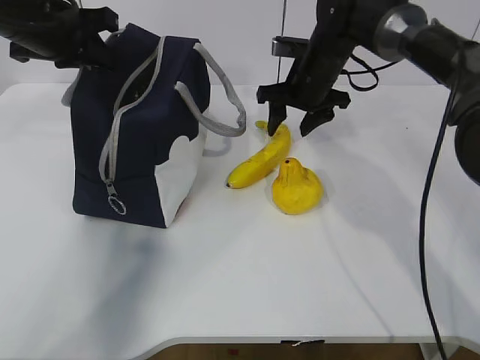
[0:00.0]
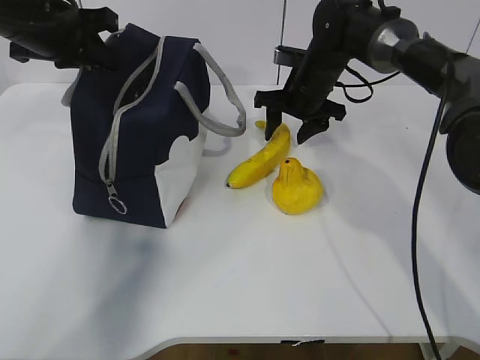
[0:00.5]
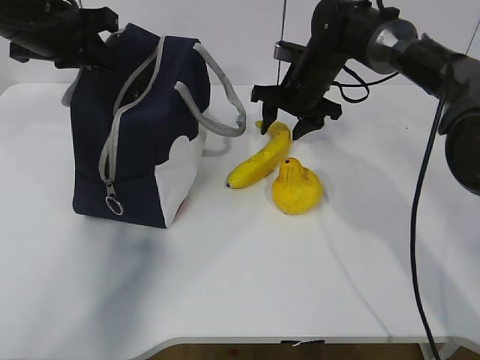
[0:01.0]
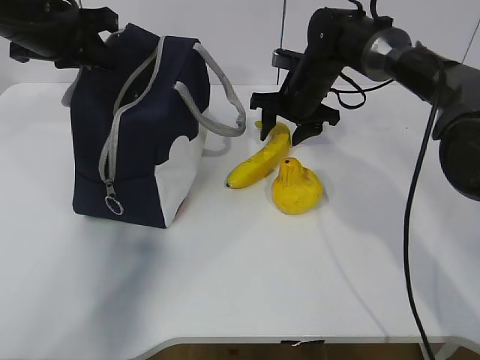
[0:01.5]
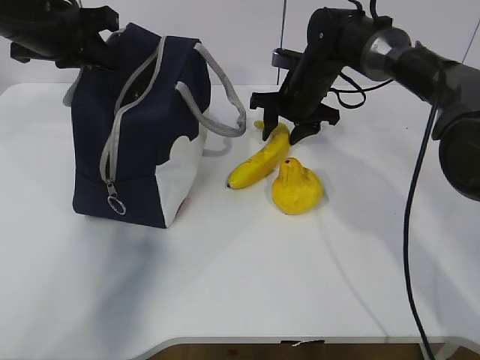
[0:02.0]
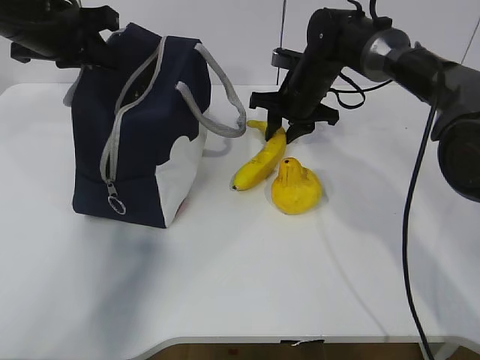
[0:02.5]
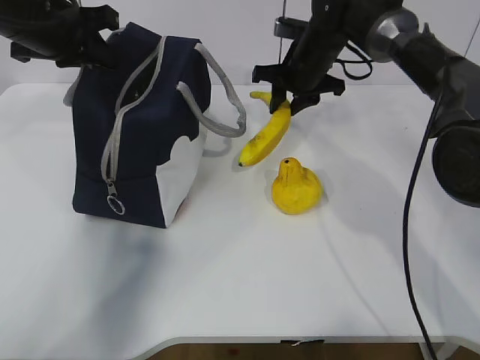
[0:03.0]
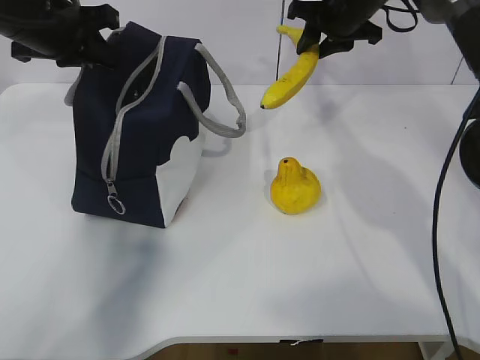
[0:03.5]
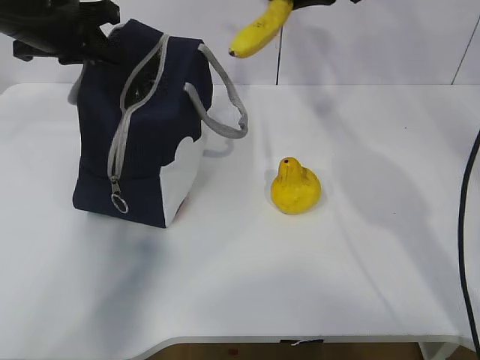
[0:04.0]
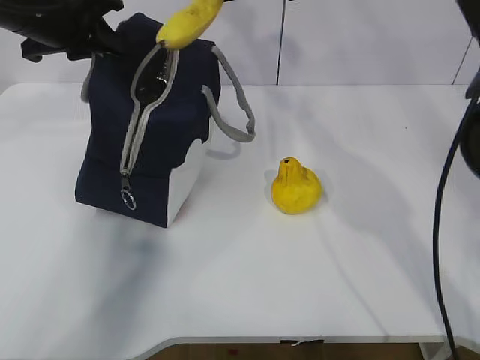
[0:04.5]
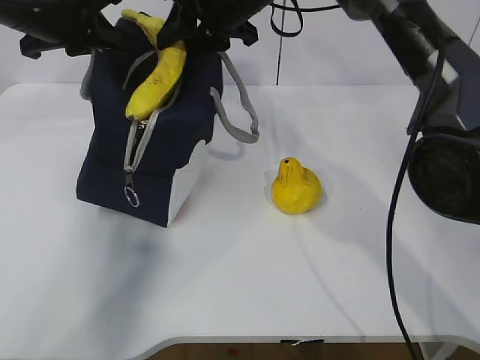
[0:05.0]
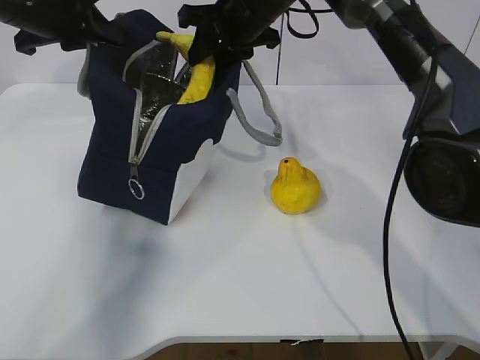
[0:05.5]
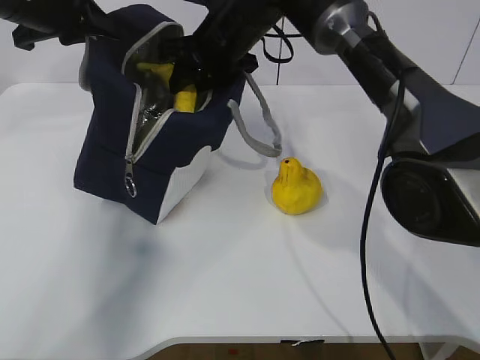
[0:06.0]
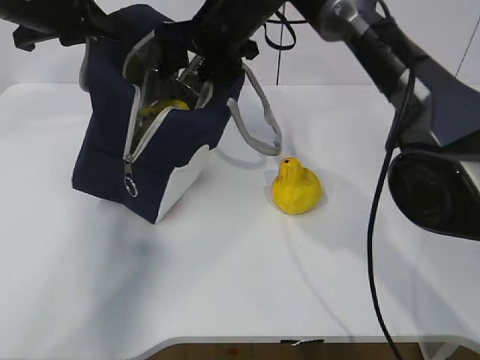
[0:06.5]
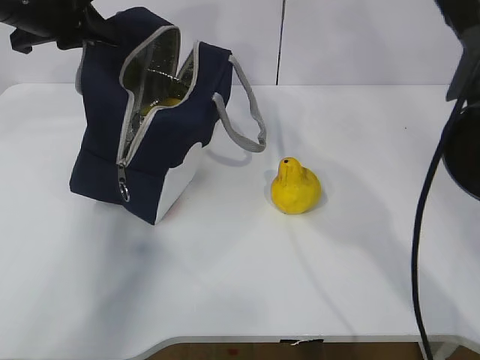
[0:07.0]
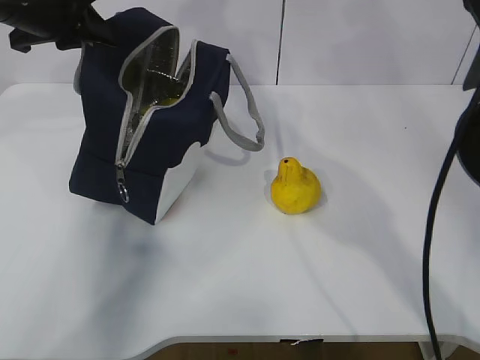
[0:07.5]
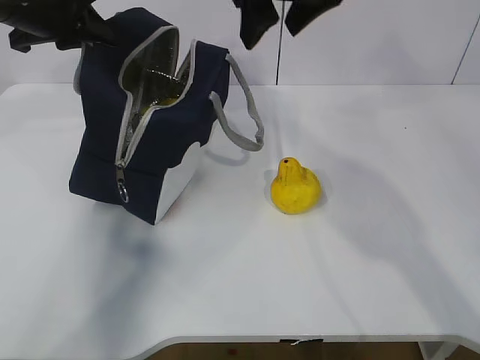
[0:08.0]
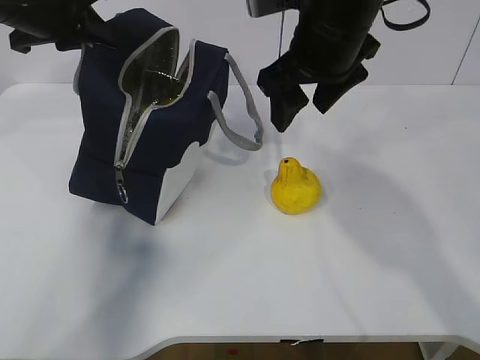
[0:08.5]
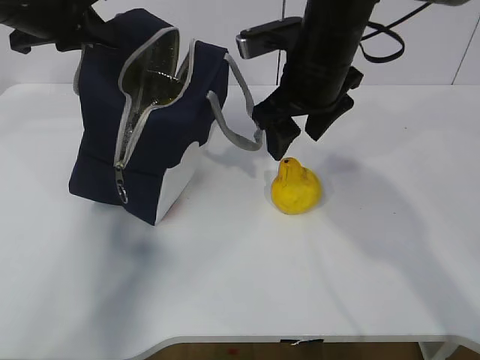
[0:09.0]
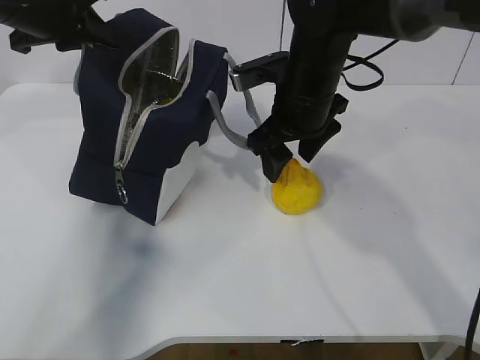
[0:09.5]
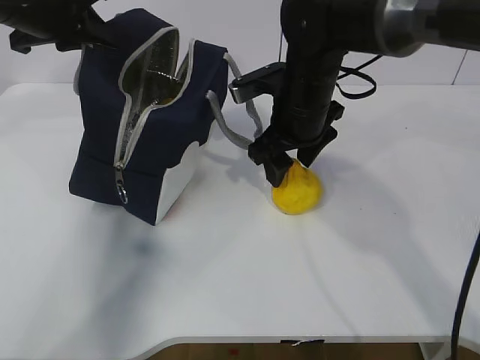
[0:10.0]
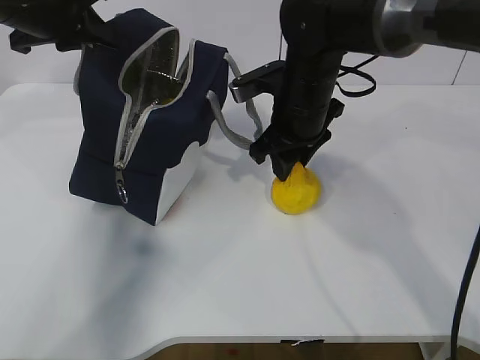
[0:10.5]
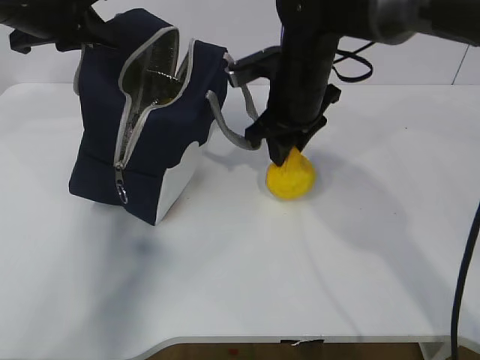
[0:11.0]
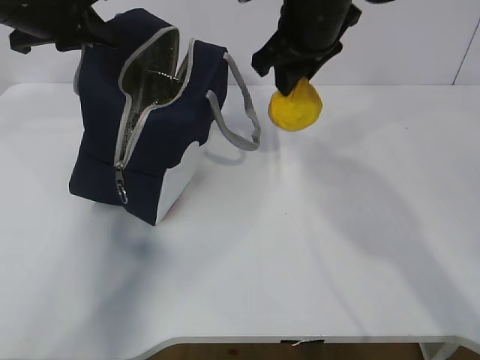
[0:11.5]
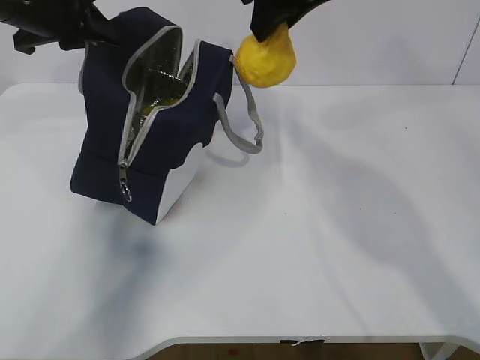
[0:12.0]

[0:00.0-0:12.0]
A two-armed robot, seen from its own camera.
Step, 0:01.5 to 0:04.5: Grab the pear with your right hand.
Step, 0:07.5 to 0:08.5: Grab the lunch bag with your right hand.
Step, 0:09.0 to 0:10.5: Move the lunch bag to the right.
0:00.0 to 0:02.0: The grippers stay close to where they were, moving slightly.
0:02.0 to 0:04.0: The right gripper shifts some 20 cm upward.
0:04.0 to 0:06.0: The right gripper is displaced to the left and downward by approximately 15 cm.
0:06.0 to 0:08.0: The right gripper shifts approximately 15 cm upward, backward and to the right, and opens up.
0:08.0 to 0:10.0: The right gripper shifts roughly 15 cm downward.
0:10.0 to 0:12.0: The right gripper travels upward by approximately 15 cm, and closes.

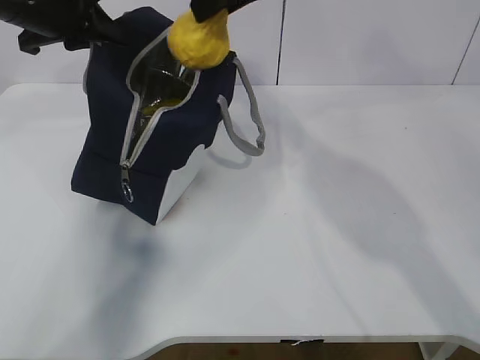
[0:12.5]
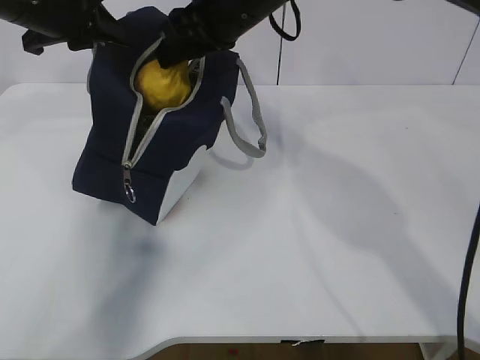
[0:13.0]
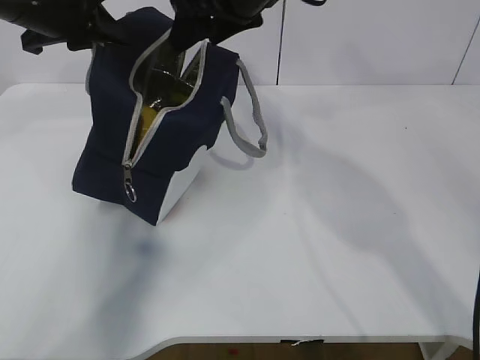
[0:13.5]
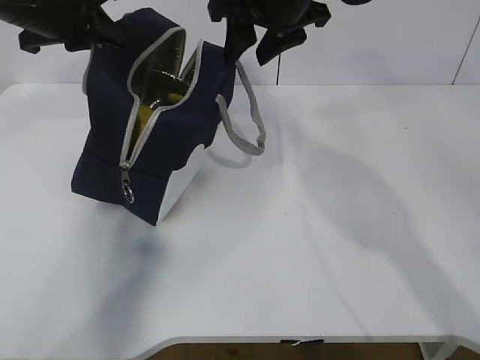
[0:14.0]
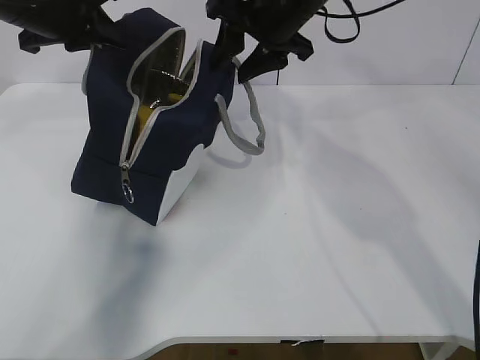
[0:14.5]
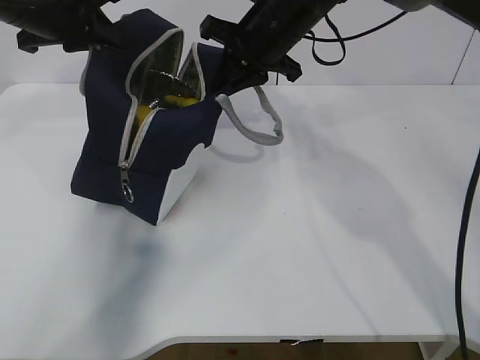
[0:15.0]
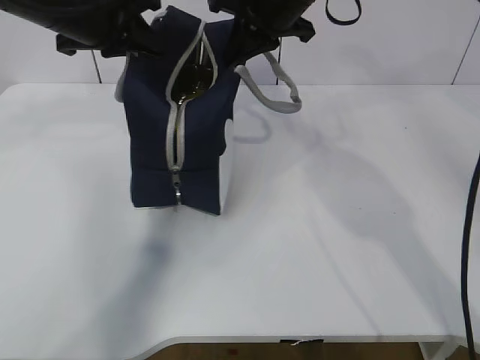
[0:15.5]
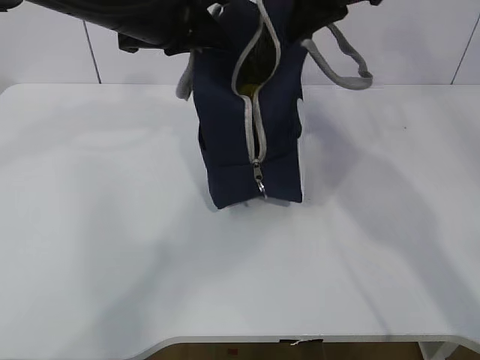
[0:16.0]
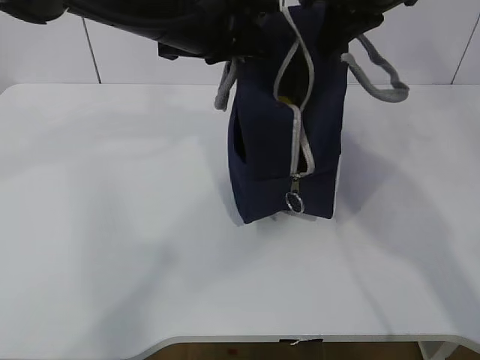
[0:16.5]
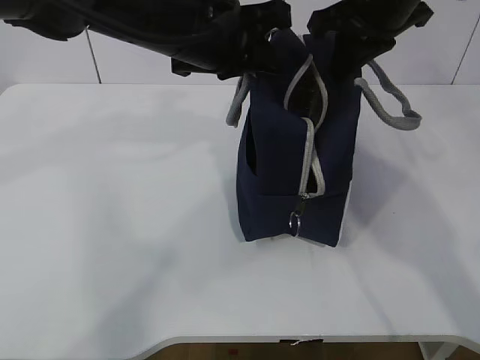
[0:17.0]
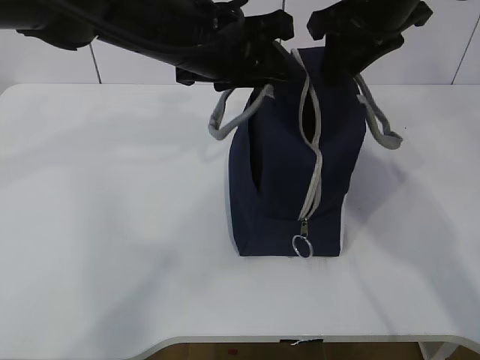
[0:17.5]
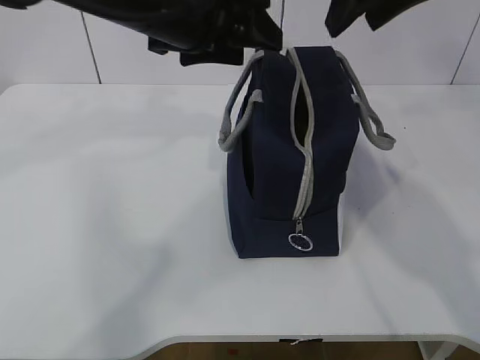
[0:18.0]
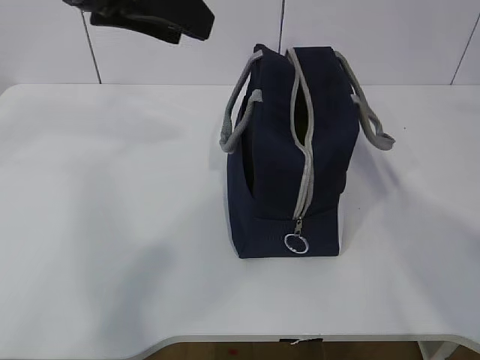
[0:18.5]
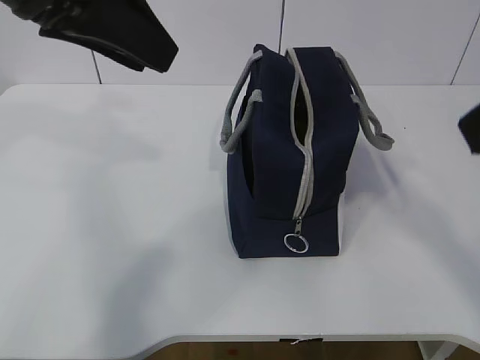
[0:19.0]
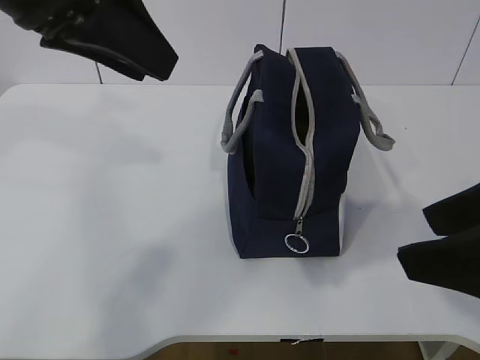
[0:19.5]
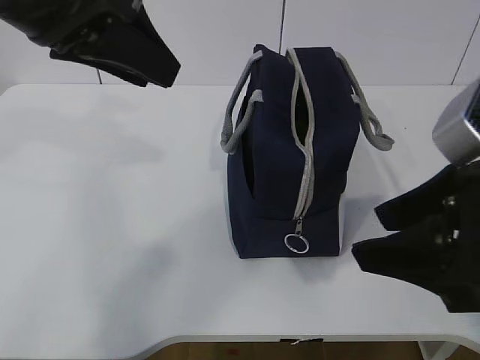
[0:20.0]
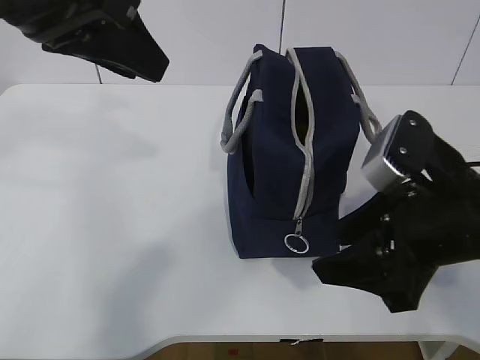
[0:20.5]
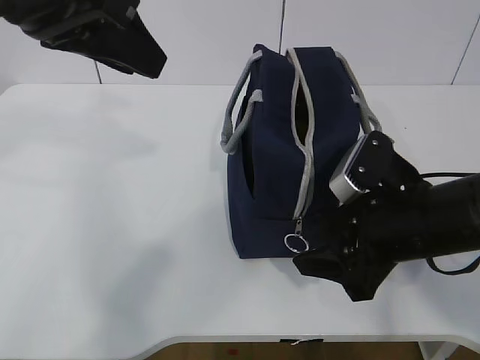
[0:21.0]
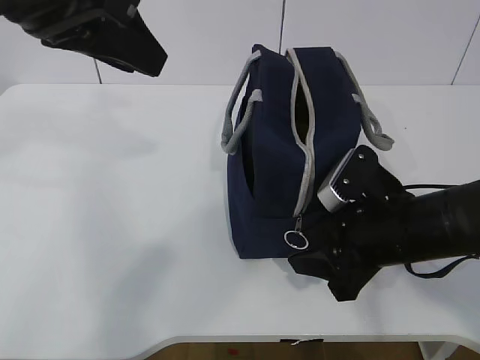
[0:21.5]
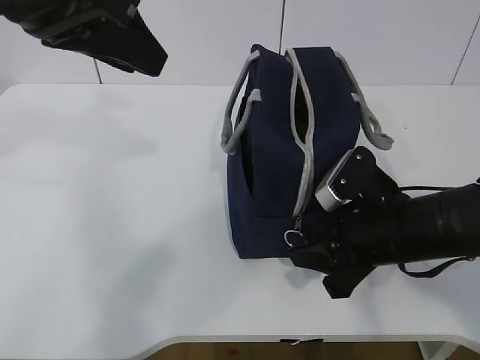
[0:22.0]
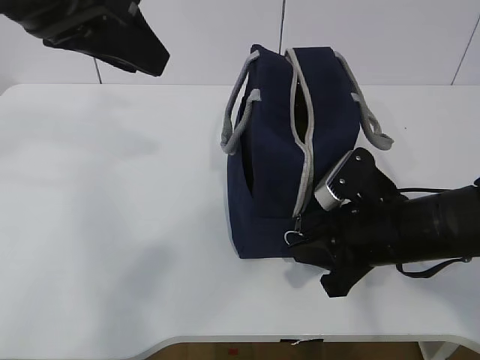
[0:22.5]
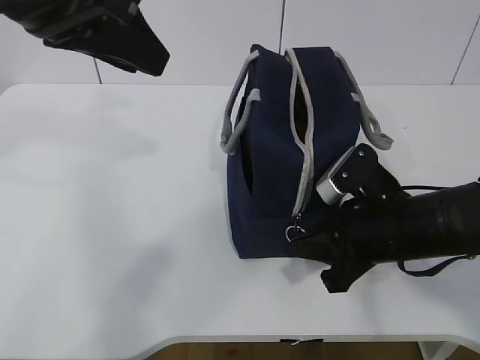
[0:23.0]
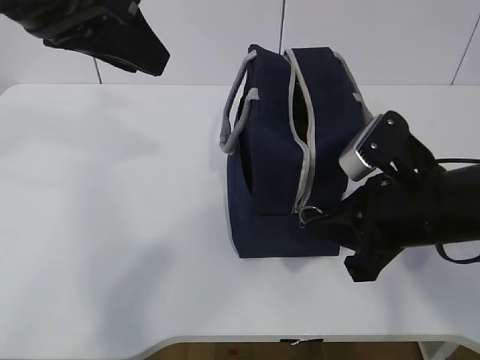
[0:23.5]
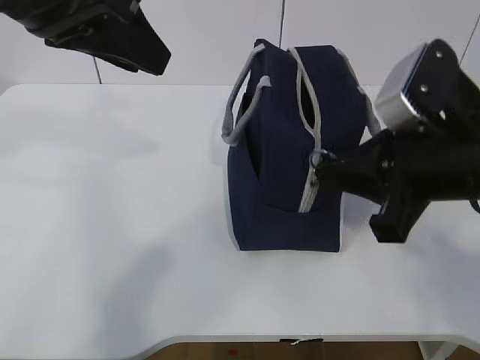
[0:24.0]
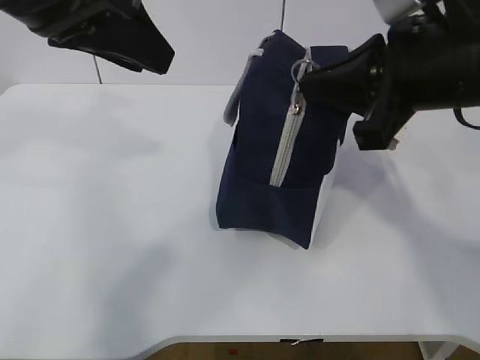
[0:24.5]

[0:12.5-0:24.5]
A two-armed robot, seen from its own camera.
Step, 0:12.5 to 0:22.5: Grab the lunch bag with your left hand.
0:12.5 to 0:14.5: The right gripper shifts some 5 cm downward.
0:14.5 to 0:16.5: The left gripper is displaced to the right and backward by approximately 15 cm; the right gripper shifts roughly 10 cm to the right and upward, and closes up.
0:16.5 to 0:18.5: The left gripper shifts about 10 cm upward, to the left and backward, and opens its fingers; the right gripper moves backward and upward, some 15 cm, and opens.
0:18.5 to 0:20.5: The right gripper is displaced downward by some 25 cm.
0:20.5 to 0:22.5: The right gripper heads downward and forward, covering roughly 10 cm, and closes.
0:22.5 to 0:24.5: The right gripper travels upward by about 15 cm.

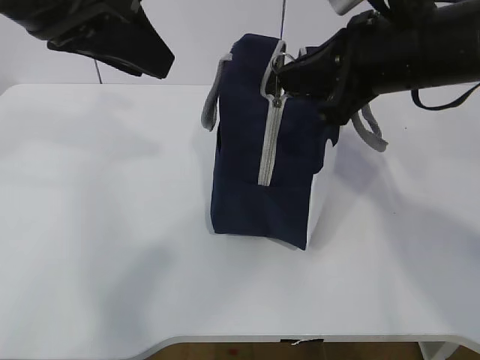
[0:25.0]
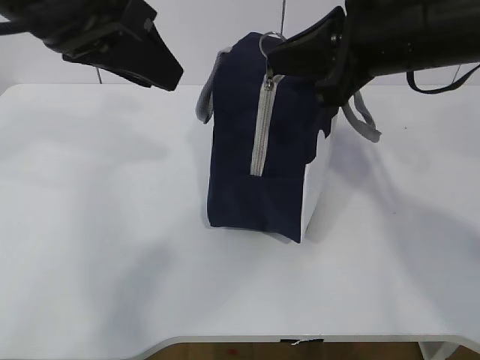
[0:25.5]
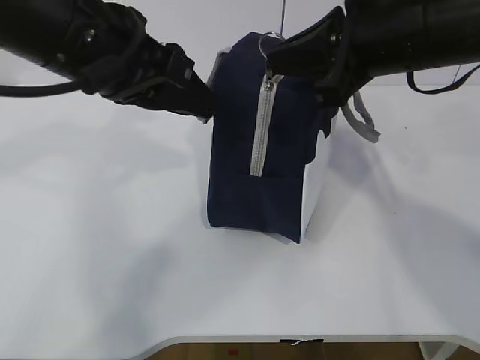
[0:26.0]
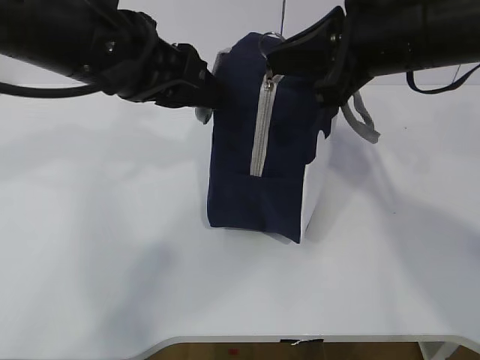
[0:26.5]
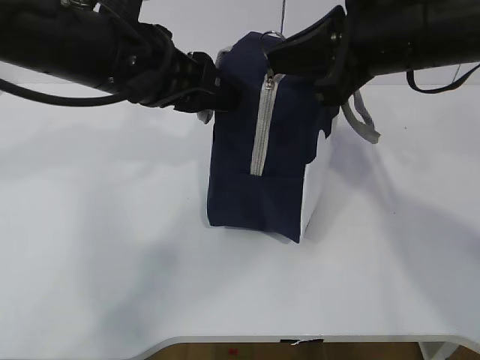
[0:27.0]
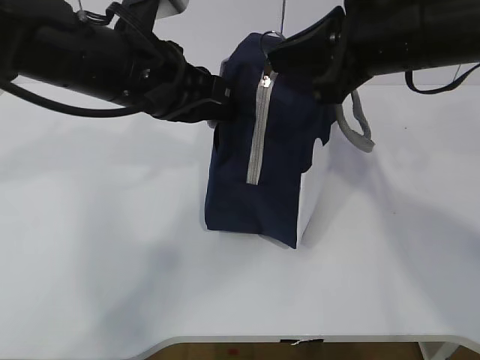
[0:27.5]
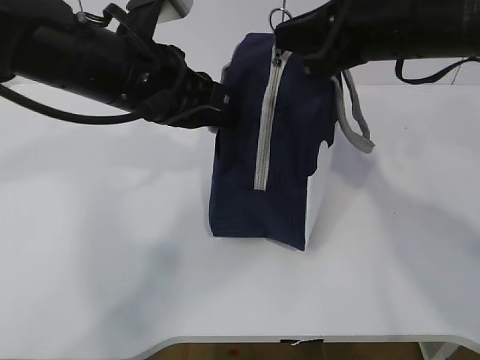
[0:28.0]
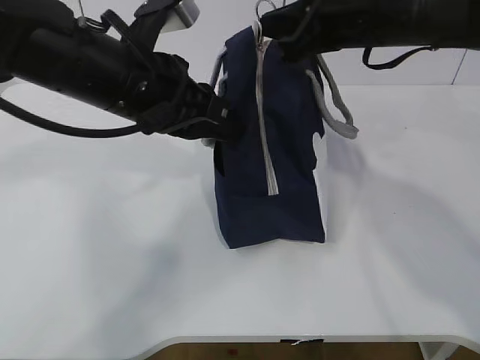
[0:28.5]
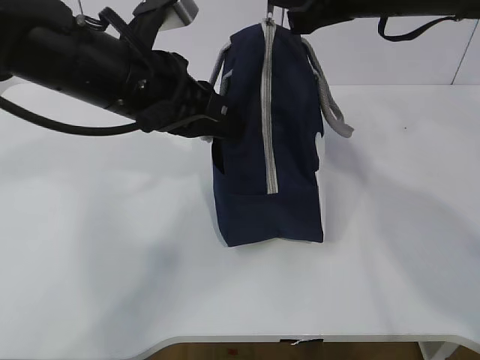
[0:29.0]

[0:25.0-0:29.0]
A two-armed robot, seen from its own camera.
0:25.0 to 0:27.0: The left gripper travels downward and forward by roughly 10 cm.
0:27.0 to 0:29.0: The left gripper closes up. The right gripper moves forward, approximately 5 cm.
